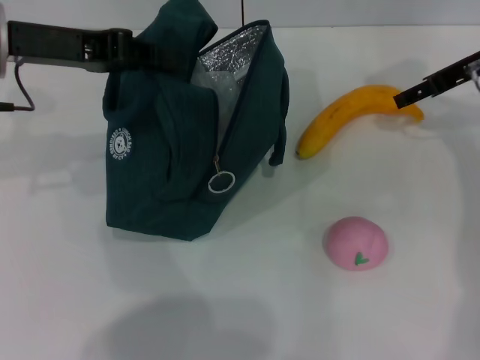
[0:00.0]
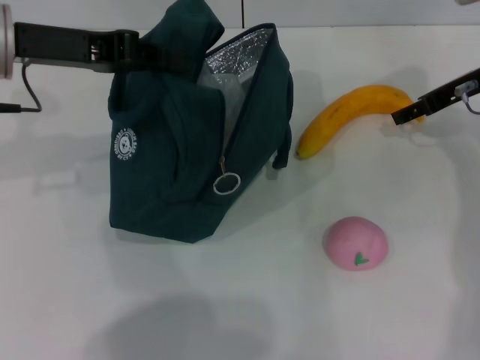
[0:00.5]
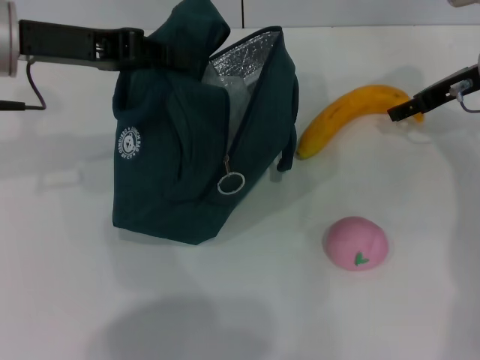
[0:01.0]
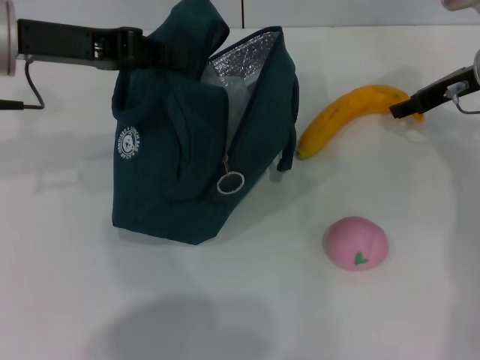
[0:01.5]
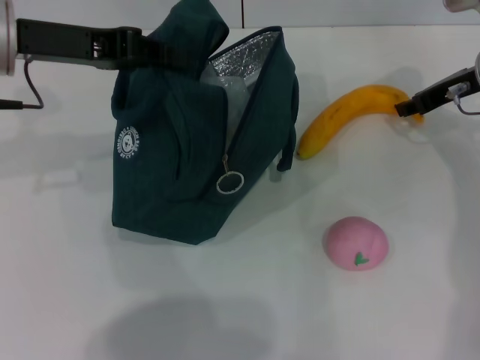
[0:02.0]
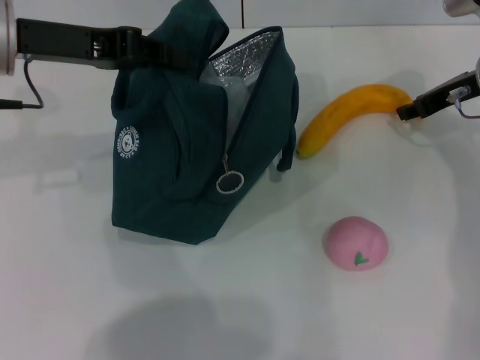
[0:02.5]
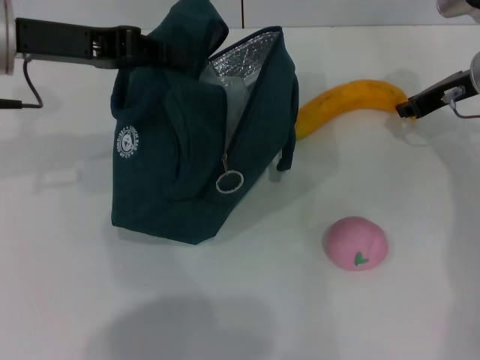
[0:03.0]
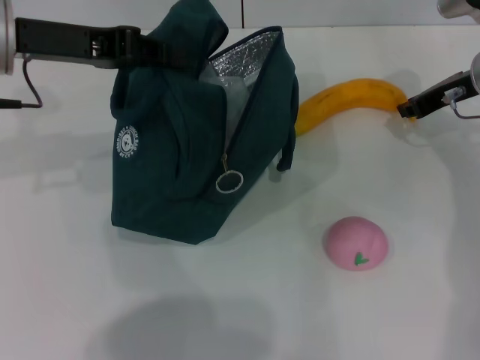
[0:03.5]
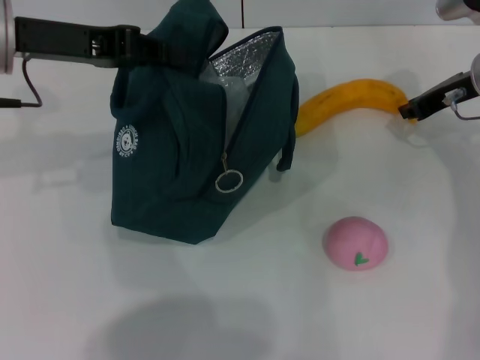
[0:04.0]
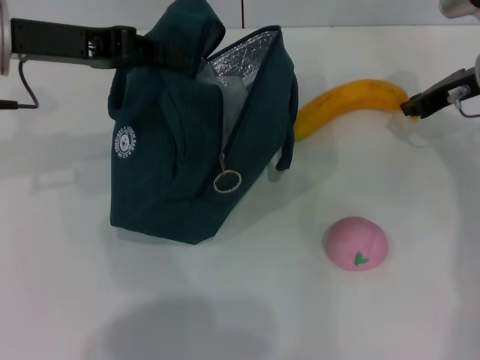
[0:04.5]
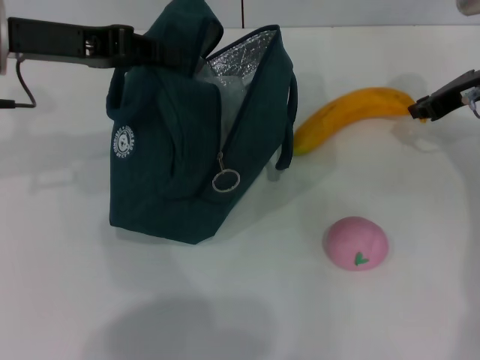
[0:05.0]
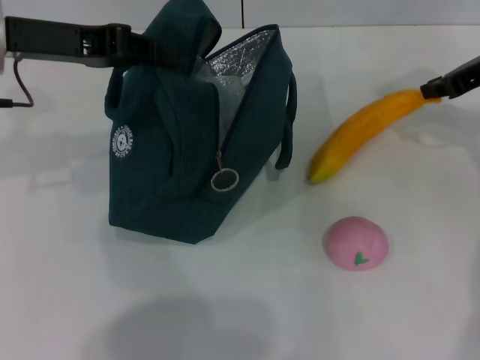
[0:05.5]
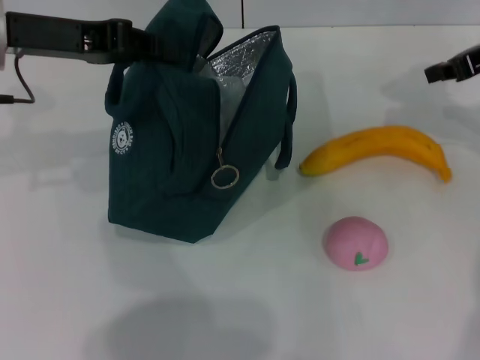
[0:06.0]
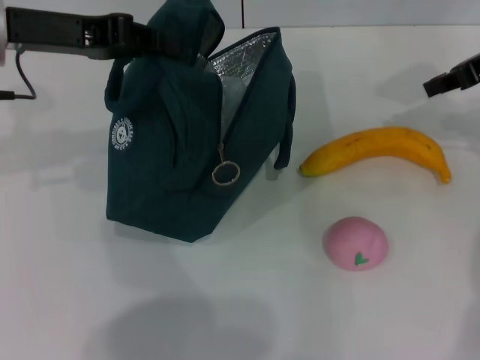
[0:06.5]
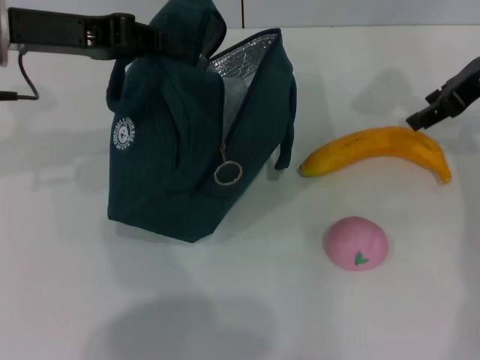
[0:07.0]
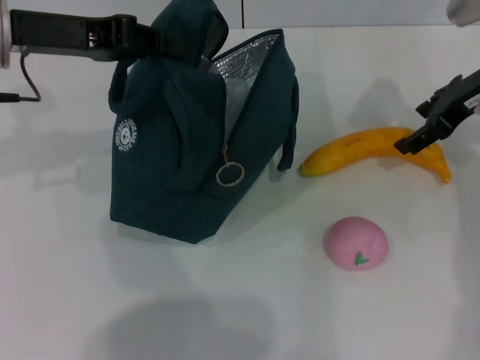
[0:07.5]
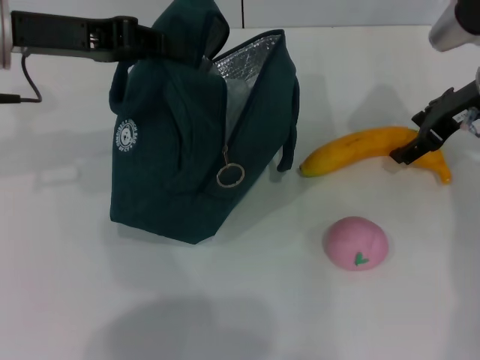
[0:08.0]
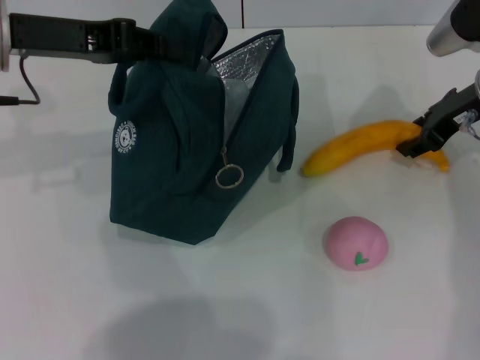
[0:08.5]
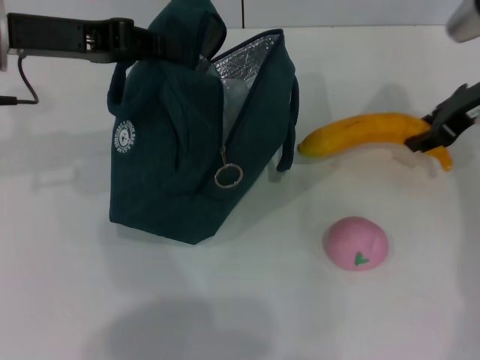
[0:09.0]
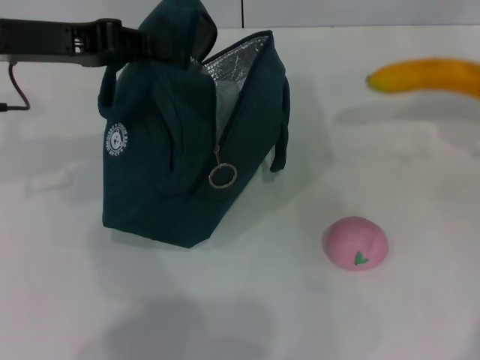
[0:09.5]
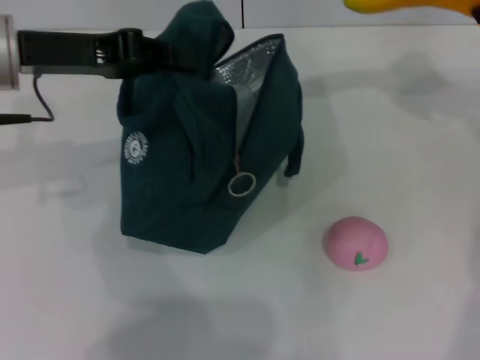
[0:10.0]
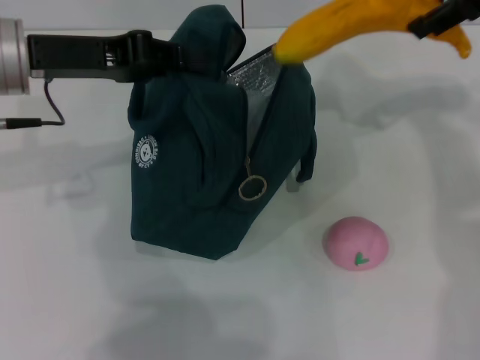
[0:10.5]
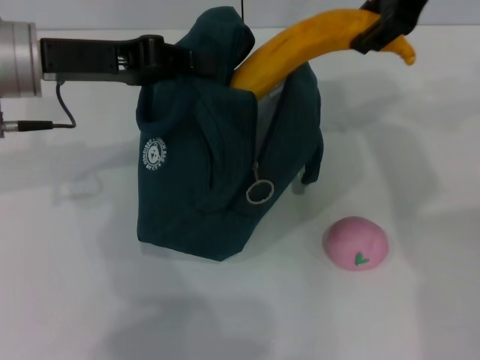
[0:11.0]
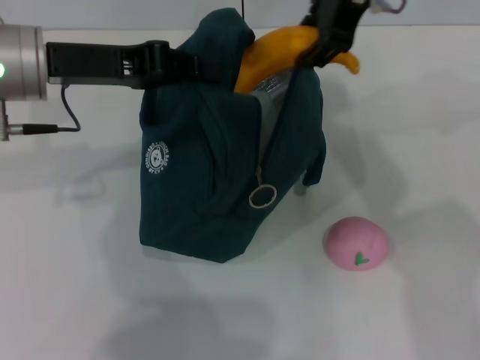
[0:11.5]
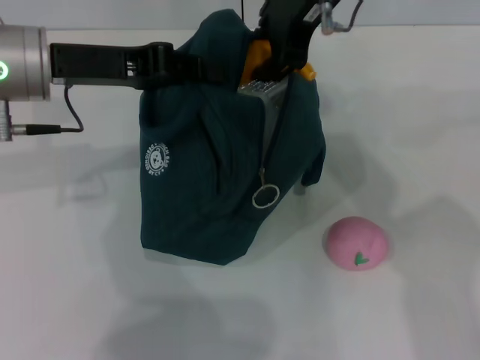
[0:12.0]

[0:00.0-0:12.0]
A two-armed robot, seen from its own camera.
Step, 0:00.0 to 0:08.5: Take the banana with your right hand.
0:00.0 to 0:02.0: The right gripper closes its fingers.
0:02.0 to 0:04.0: The two grippers keep their place.
0:04.0 to 0:06.0: The right gripper heads upward, covering some 10 cm.
0:06.0 to 0:08.0: The right gripper heads downward, covering roughly 5 cm, and opens up.
0:08.0 to 0:10.0: The right gripper travels upward and to the right by some 15 cm, and closes up.
0:10.0 to 0:12.0: The right gripper shifts some 25 cm to the left.

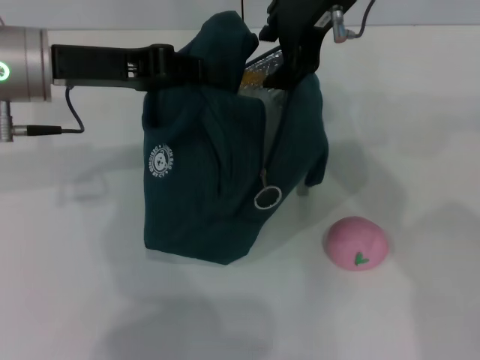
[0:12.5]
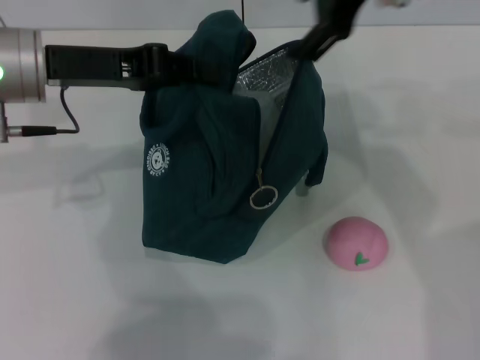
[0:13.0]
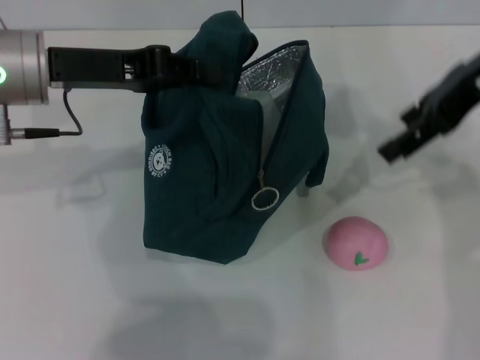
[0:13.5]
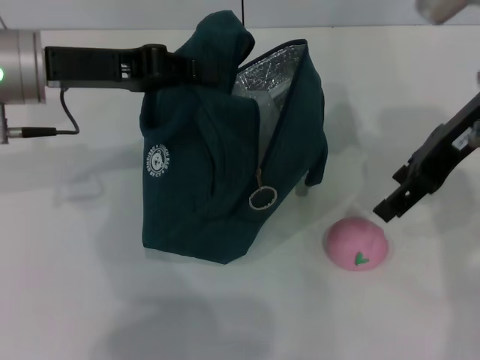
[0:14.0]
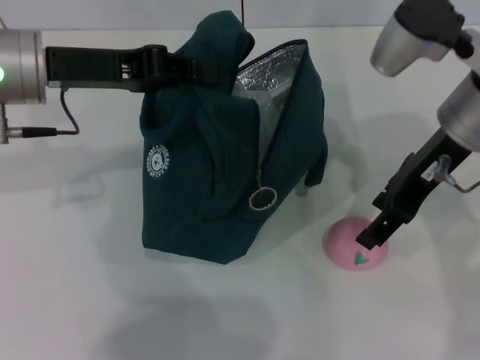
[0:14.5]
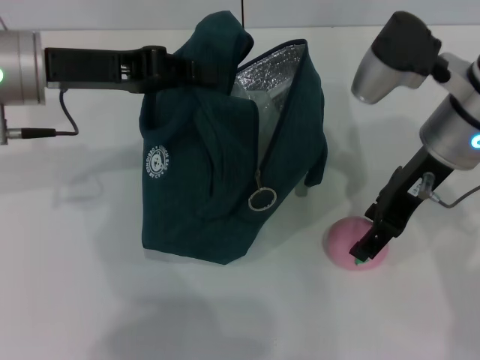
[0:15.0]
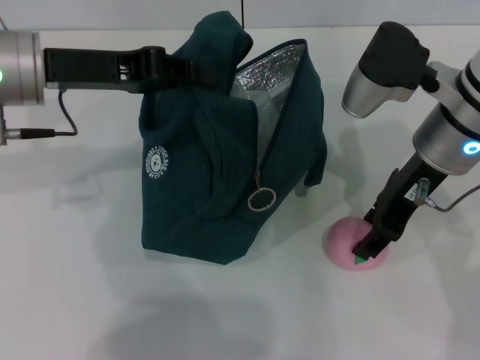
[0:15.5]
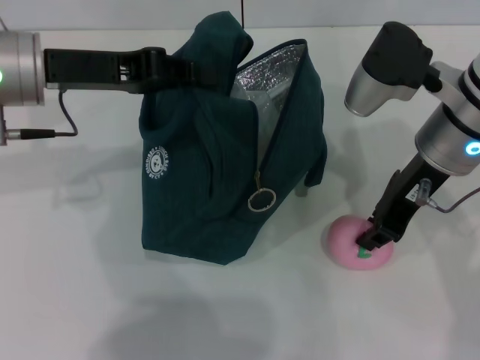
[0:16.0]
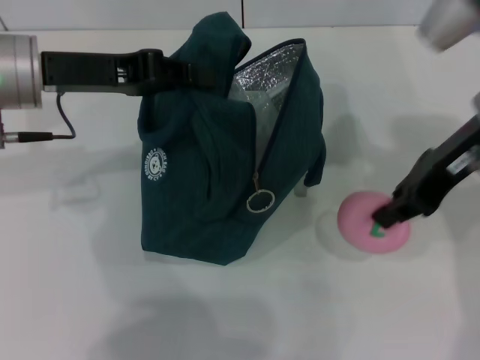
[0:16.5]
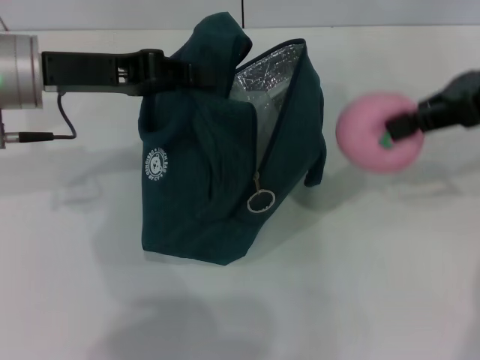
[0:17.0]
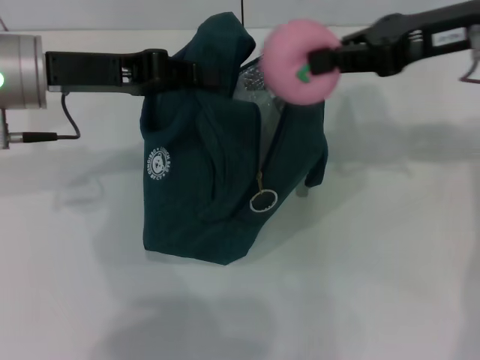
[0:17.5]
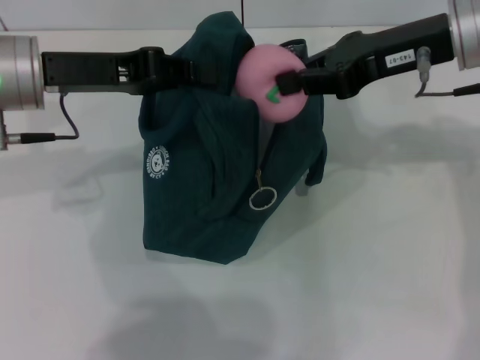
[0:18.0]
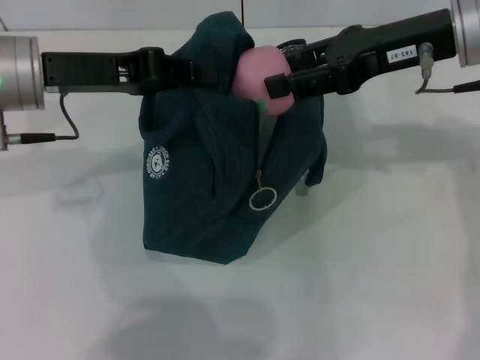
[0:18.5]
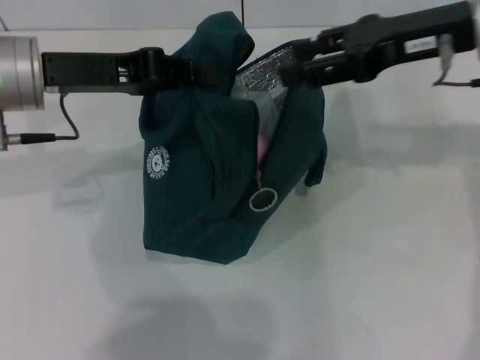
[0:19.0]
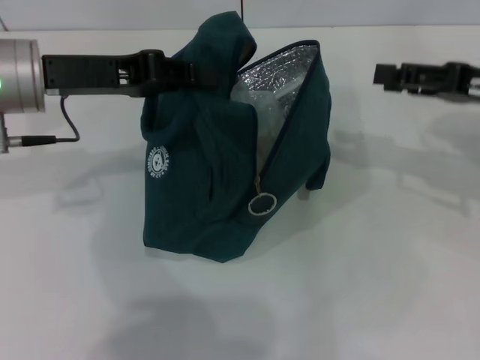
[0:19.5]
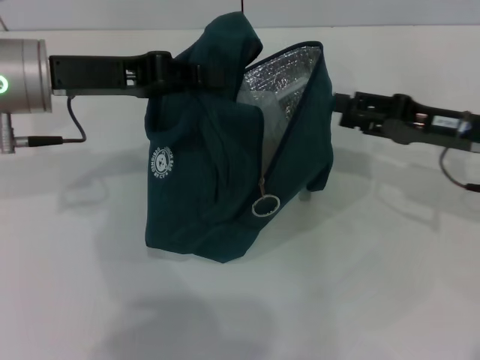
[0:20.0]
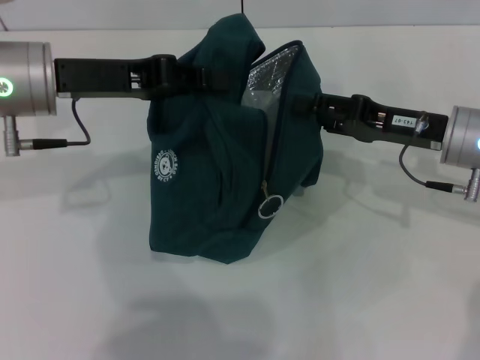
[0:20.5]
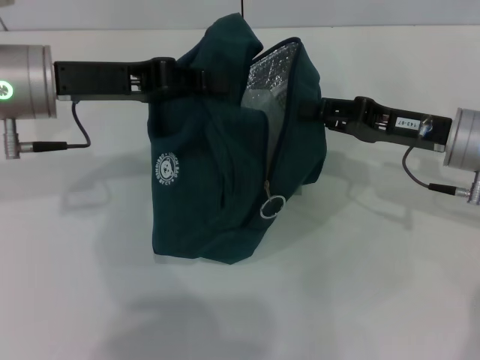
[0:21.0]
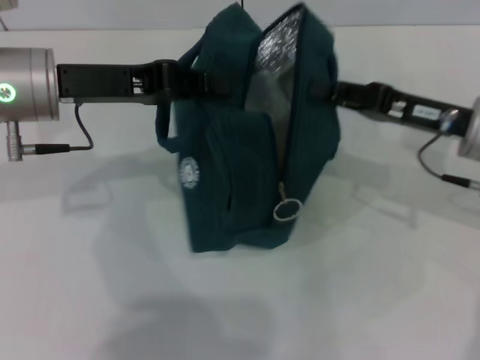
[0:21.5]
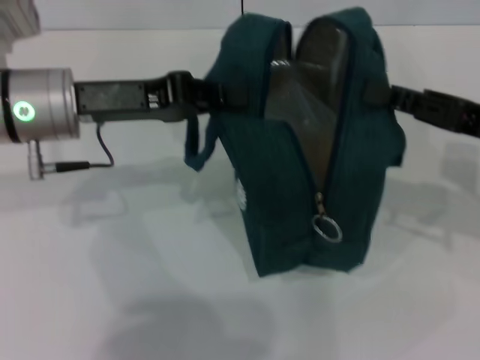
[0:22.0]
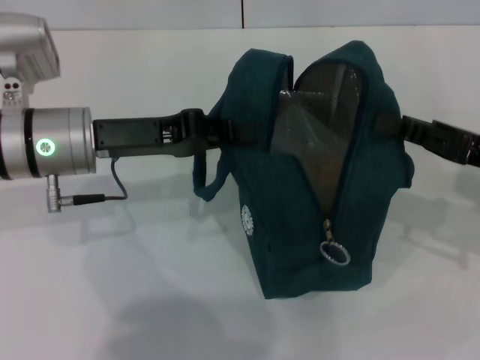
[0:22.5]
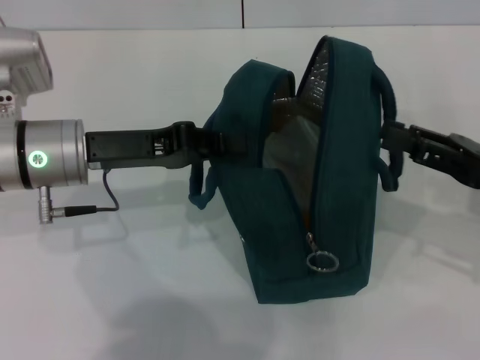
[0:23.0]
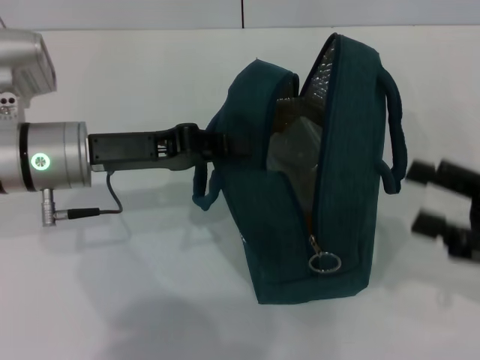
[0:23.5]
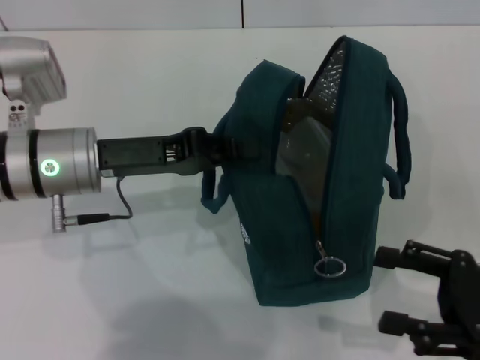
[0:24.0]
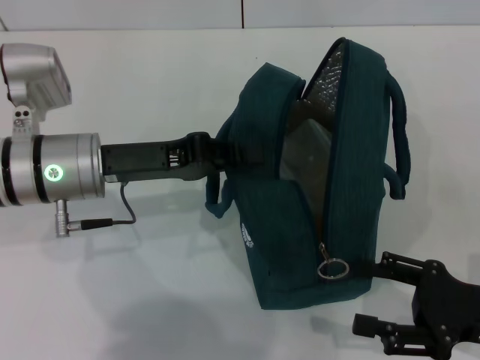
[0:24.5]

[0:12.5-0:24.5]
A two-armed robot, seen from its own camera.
Step, 0:13.0 to 0:15.5: Grab the peach with your right hand.
Step, 0:19.5 to 0:23.0: Hold the lunch bag with your right hand.
0:12.5 to 0:14.5: The right gripper is displaced to the right and downward by approximately 15 cm.
0:14.5 to 0:16.5: The right gripper closes its fingers.
0:18.5 to 0:20.5: The right gripper heads downward, covering roughly 15 cm, and opens.
0:20.5 to 0:22.5: The left gripper heads downward, covering about 5 cm. The right gripper goes some 10 cm backward and to the right, and closes.
0:22.5 to 0:24.5: The right gripper is displaced backward and downward by roughly 10 cm, and opens.

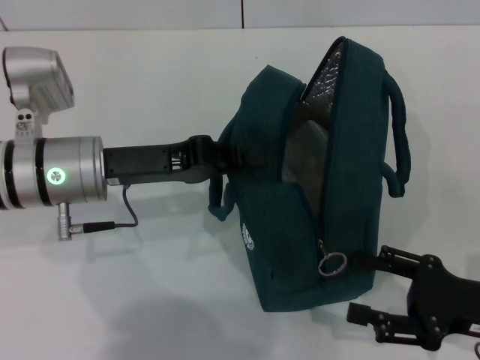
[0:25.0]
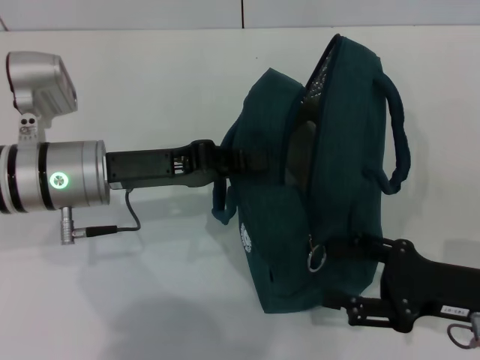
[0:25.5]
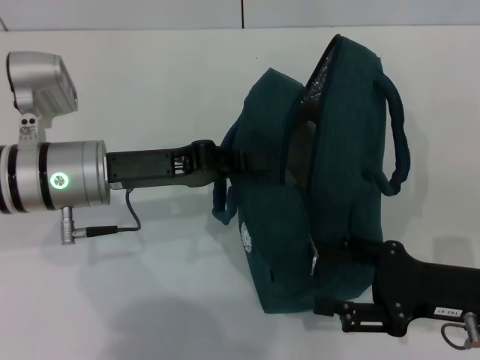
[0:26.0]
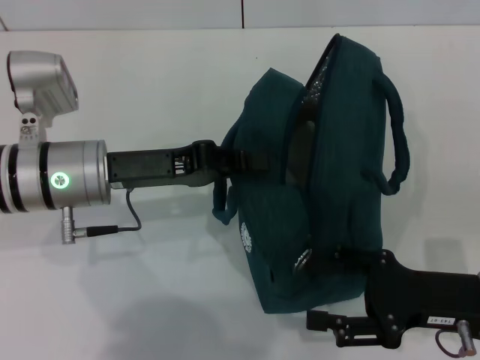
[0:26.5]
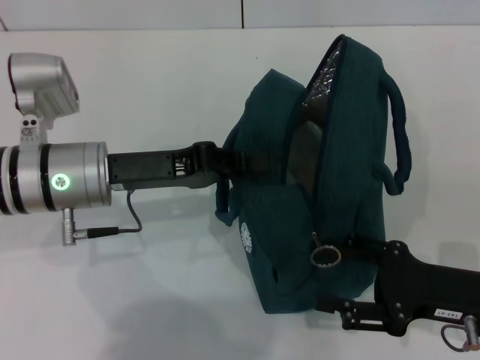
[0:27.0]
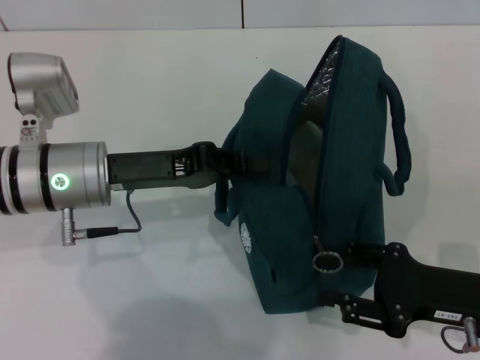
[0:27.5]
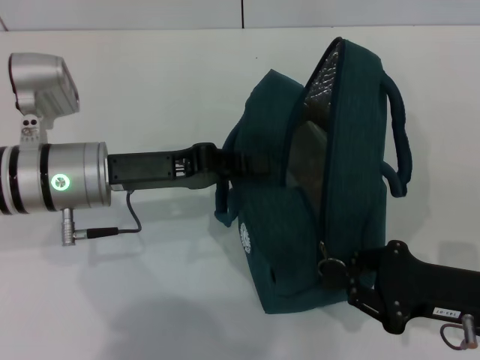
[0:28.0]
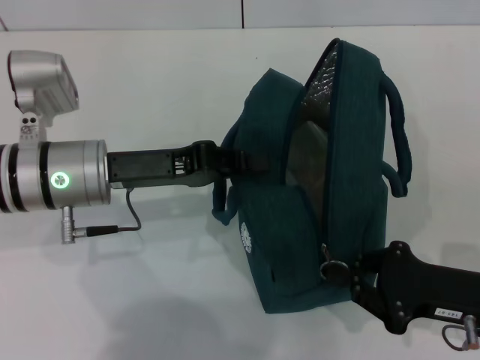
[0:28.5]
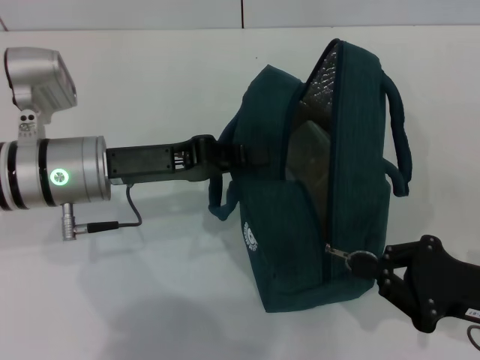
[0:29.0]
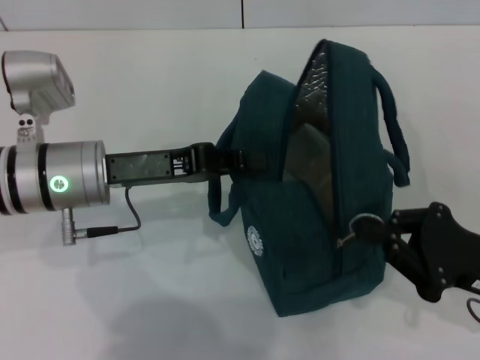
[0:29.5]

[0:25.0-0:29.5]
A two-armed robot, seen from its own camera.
0:25.0 to 0:27.0: There are only small adjustments of the grippers.
0:27.0 to 0:29.5: The right gripper closes its fingers.
